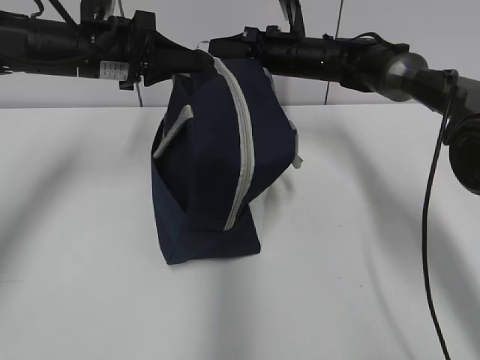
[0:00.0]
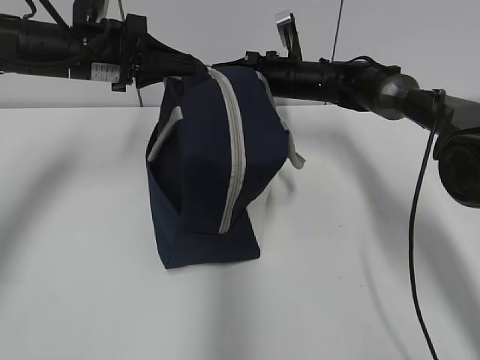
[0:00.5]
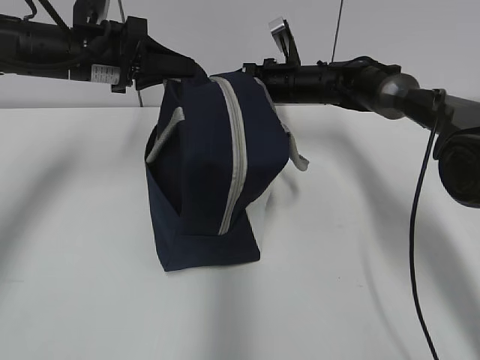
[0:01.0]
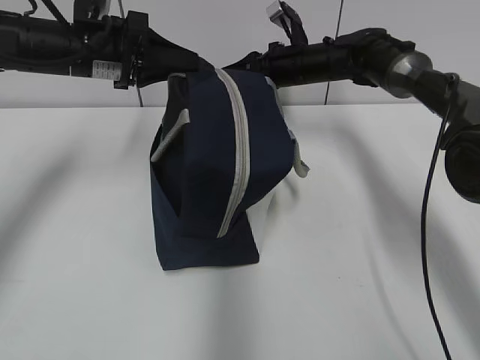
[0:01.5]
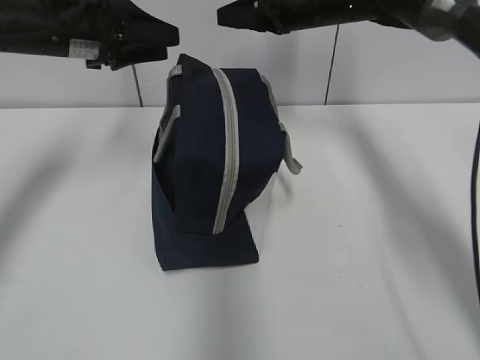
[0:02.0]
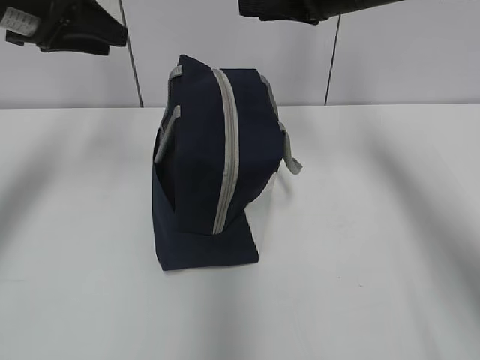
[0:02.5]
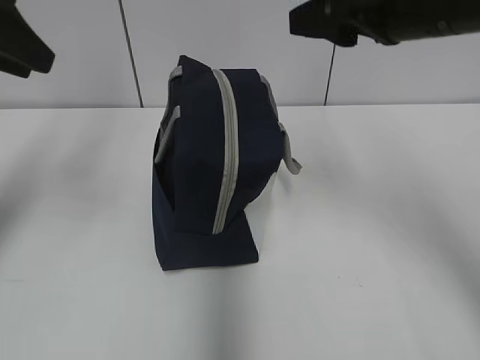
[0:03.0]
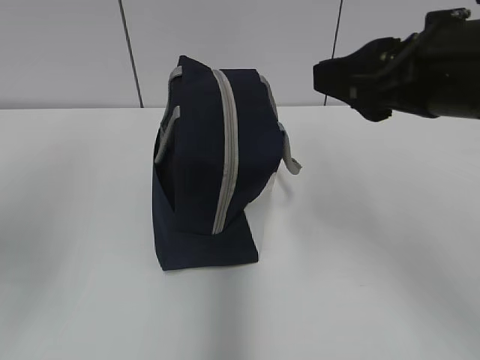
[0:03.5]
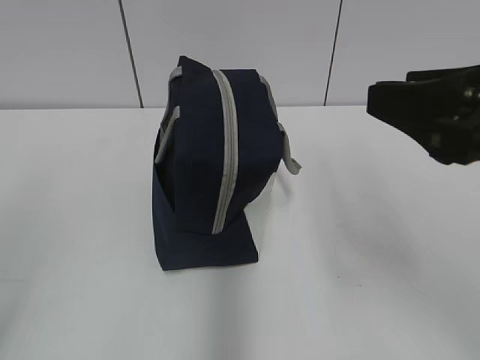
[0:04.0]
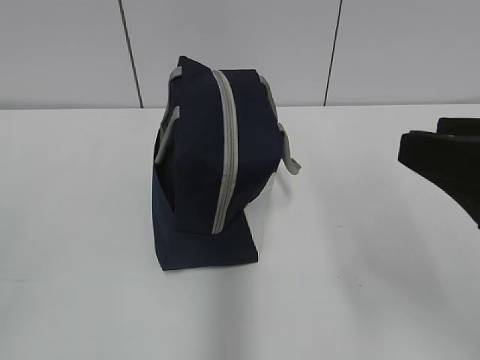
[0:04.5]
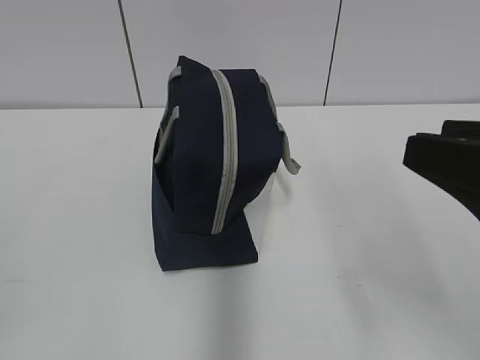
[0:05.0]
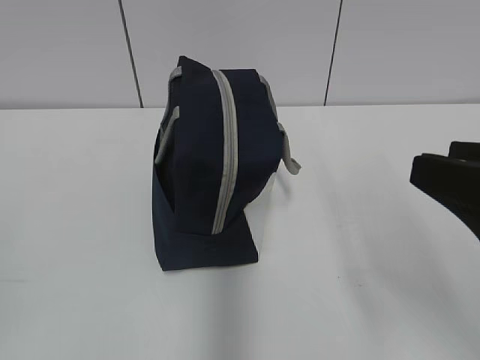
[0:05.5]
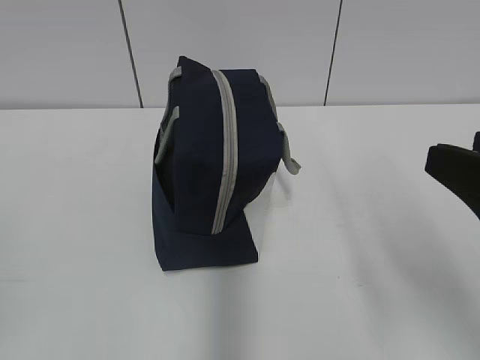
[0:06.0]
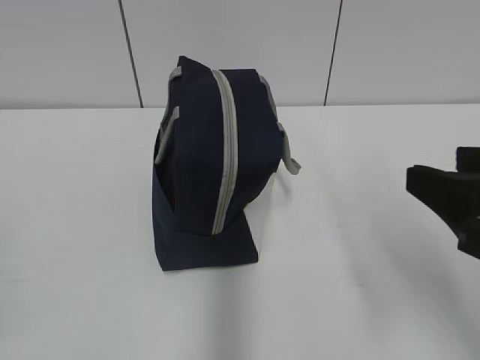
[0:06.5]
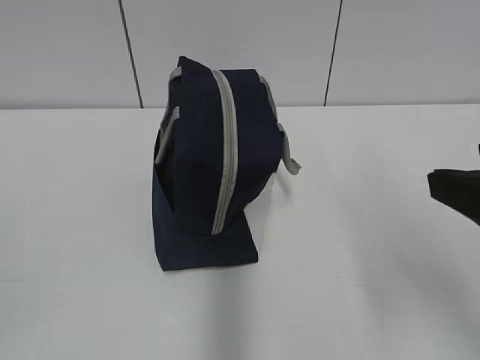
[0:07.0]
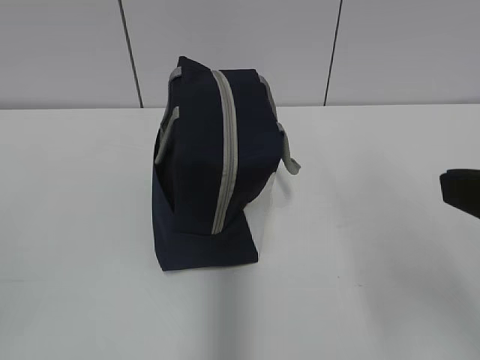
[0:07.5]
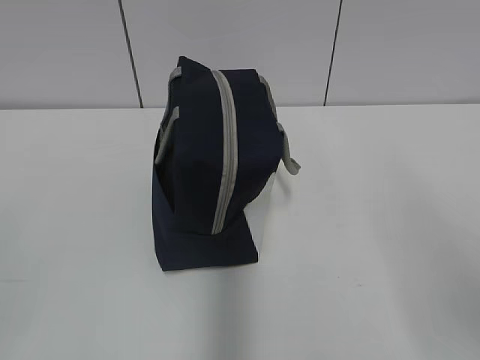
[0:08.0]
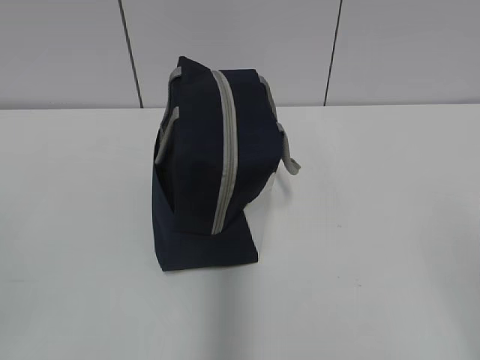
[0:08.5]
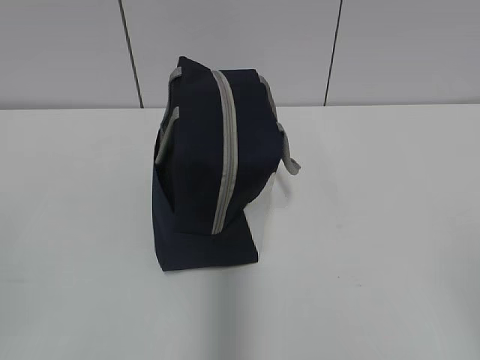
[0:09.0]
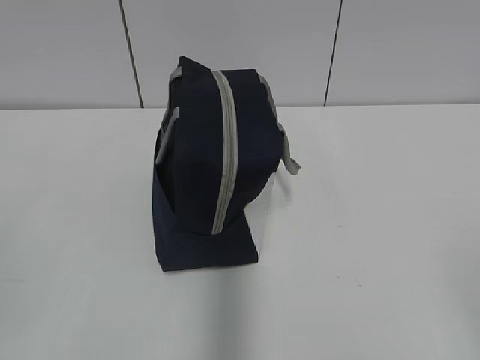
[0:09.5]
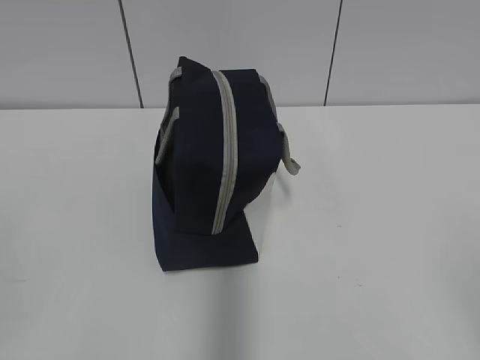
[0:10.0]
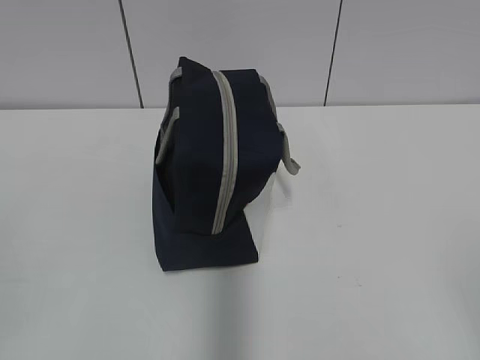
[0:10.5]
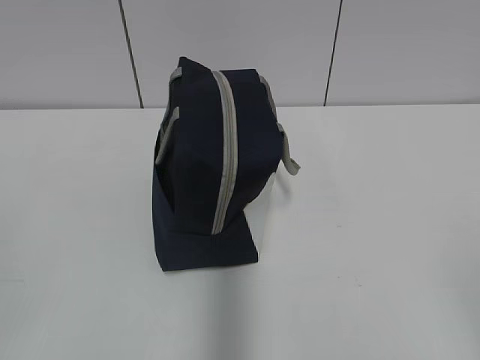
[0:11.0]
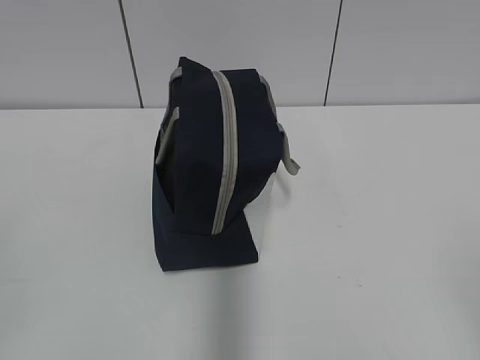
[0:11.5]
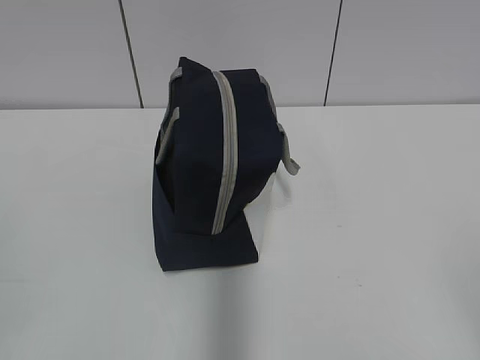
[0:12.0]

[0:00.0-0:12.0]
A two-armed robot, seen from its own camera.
0:00.0 to 0:02.0: The right gripper moves upward, about 10 cm, and opens. The left gripper opens up.
0:02.0 to 0:04.0: Both grippers move backward, roughly 35 cm.
0:04.0 to 0:06.0: The right gripper moves about 5 cm.
0:06.0 to 0:08.0: The right gripper travels backward by approximately 5 cm.
0:10.0 to 0:12.0: Neither gripper changes place.

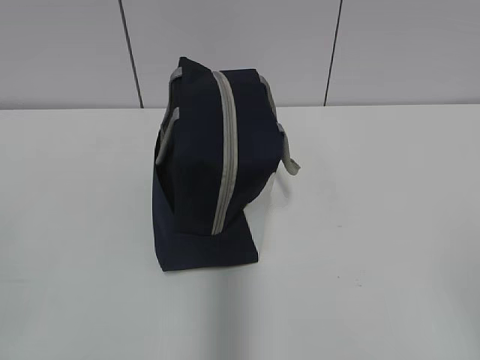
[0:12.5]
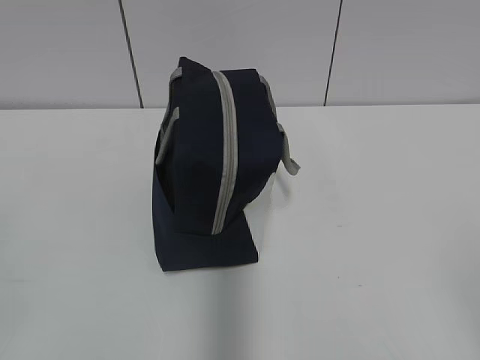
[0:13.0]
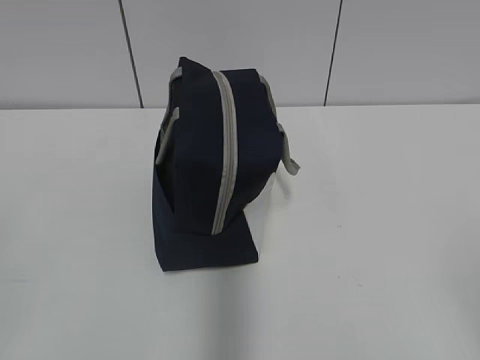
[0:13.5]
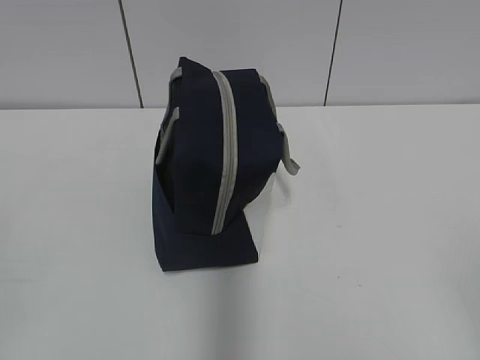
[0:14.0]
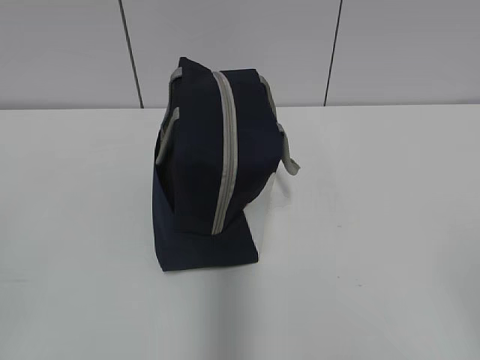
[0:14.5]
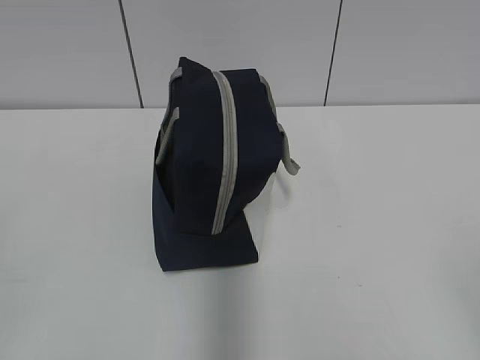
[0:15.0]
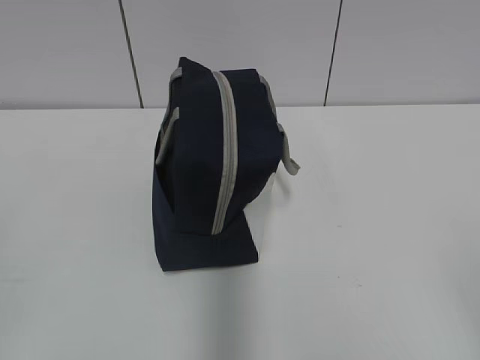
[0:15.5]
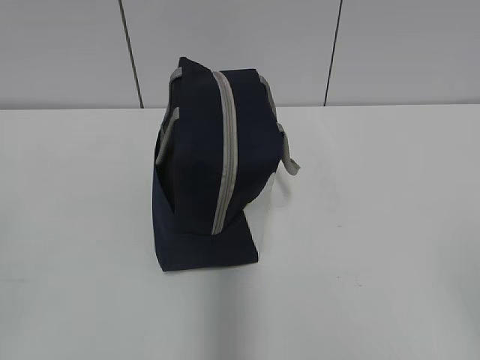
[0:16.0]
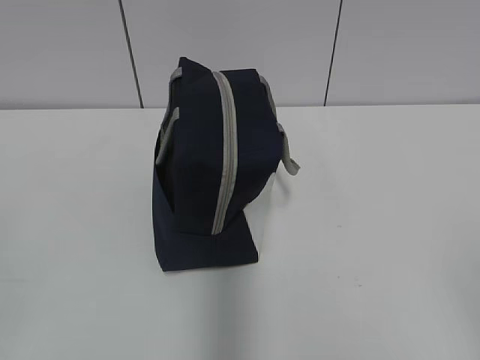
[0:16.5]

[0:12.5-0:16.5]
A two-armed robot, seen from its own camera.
0:12.5 to 0:16.5: Both grippers stay about where they are.
